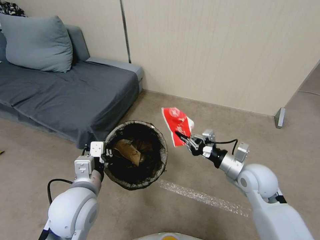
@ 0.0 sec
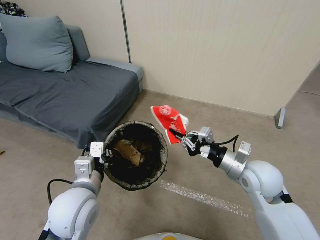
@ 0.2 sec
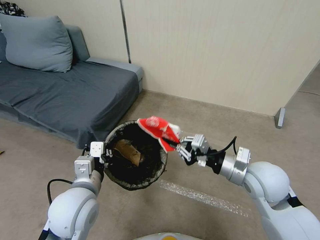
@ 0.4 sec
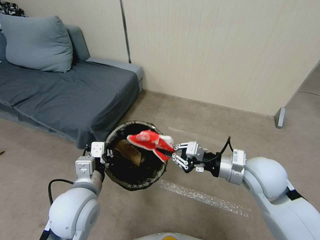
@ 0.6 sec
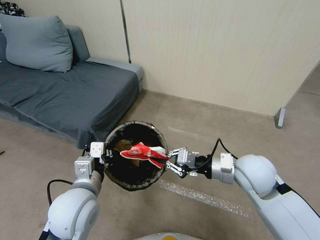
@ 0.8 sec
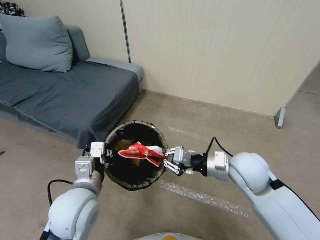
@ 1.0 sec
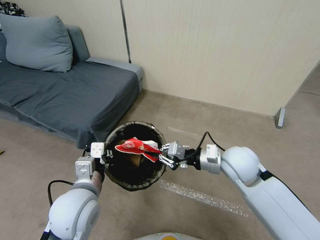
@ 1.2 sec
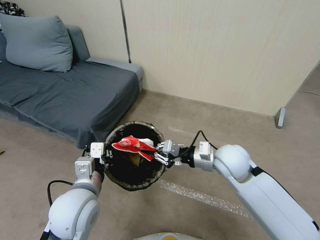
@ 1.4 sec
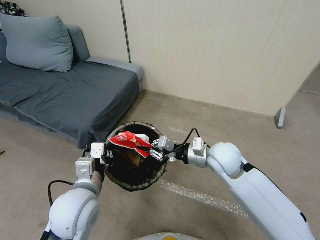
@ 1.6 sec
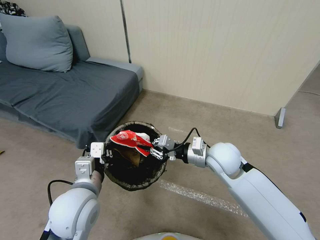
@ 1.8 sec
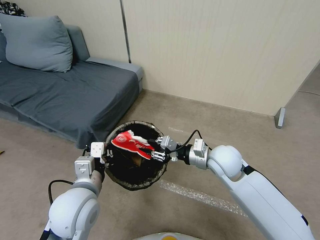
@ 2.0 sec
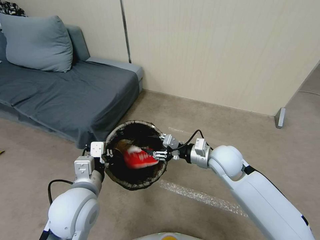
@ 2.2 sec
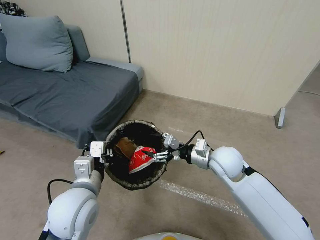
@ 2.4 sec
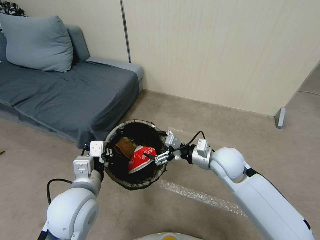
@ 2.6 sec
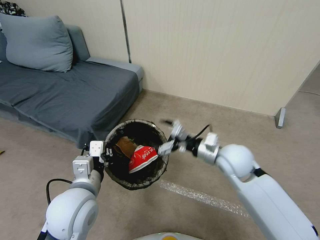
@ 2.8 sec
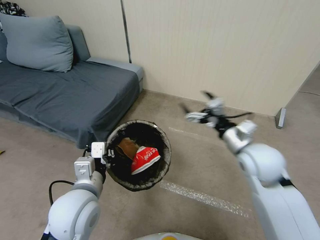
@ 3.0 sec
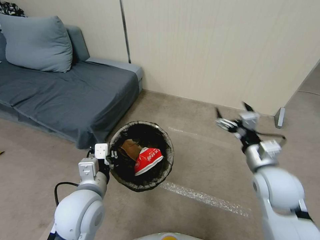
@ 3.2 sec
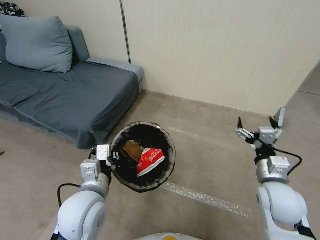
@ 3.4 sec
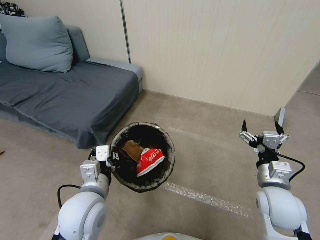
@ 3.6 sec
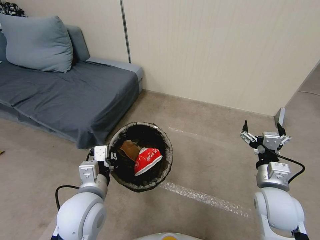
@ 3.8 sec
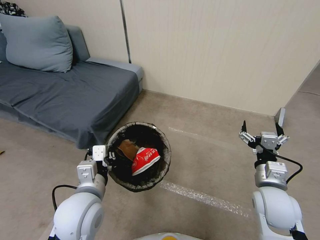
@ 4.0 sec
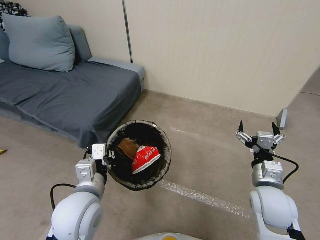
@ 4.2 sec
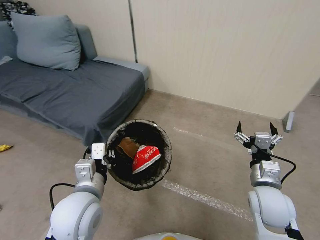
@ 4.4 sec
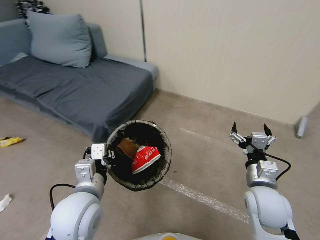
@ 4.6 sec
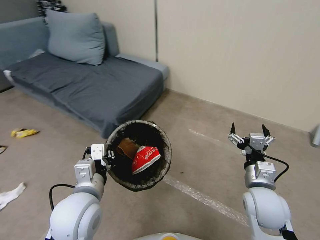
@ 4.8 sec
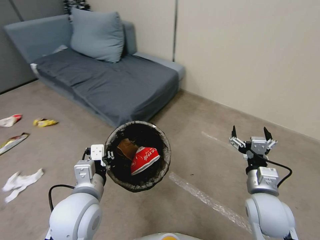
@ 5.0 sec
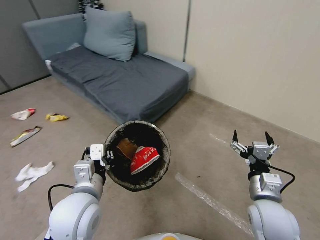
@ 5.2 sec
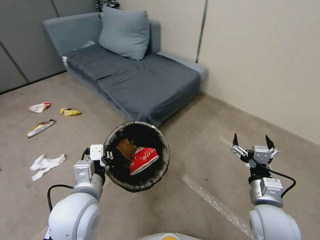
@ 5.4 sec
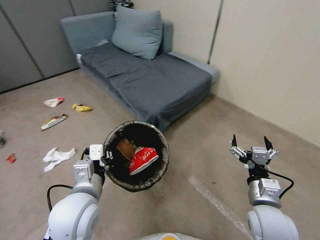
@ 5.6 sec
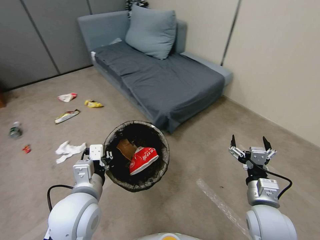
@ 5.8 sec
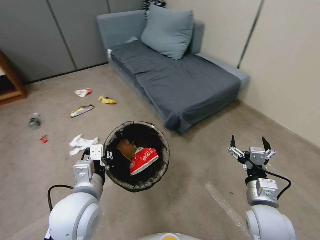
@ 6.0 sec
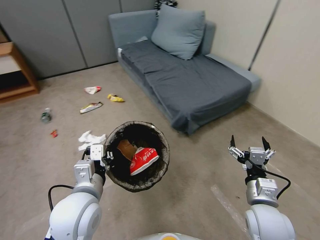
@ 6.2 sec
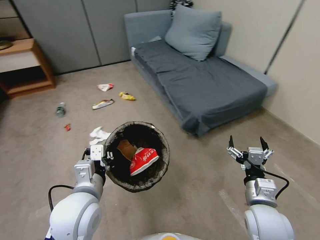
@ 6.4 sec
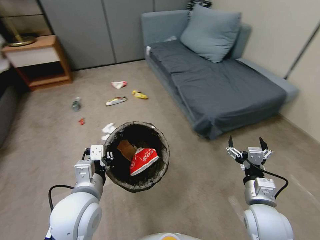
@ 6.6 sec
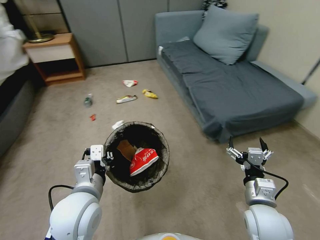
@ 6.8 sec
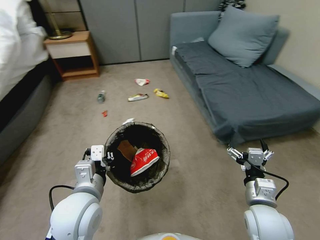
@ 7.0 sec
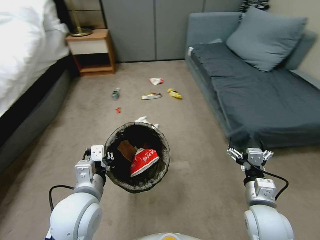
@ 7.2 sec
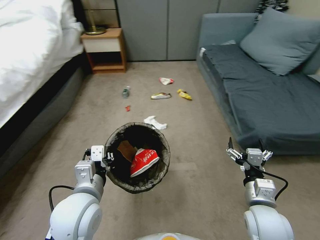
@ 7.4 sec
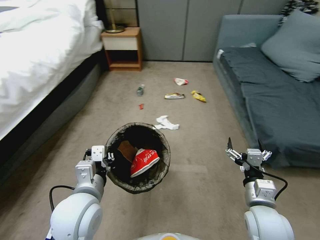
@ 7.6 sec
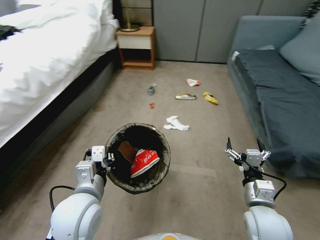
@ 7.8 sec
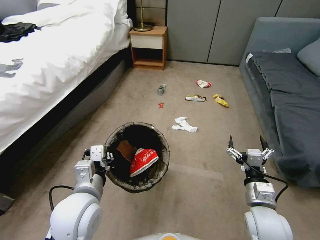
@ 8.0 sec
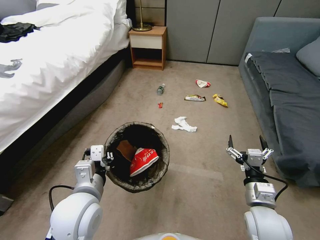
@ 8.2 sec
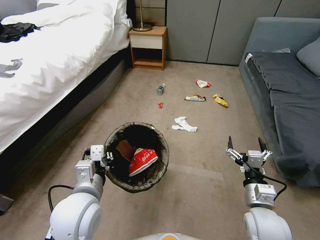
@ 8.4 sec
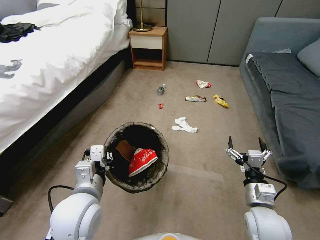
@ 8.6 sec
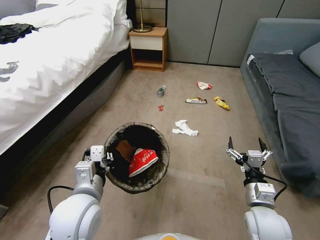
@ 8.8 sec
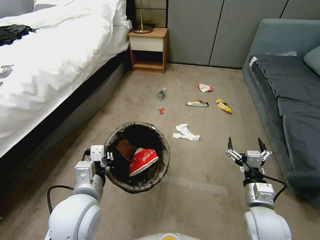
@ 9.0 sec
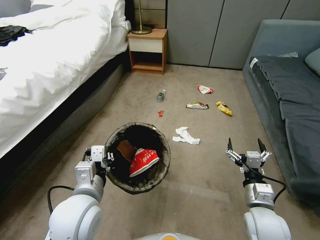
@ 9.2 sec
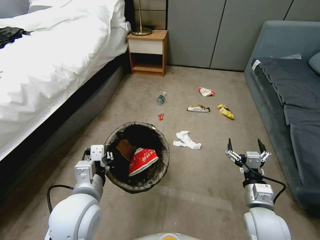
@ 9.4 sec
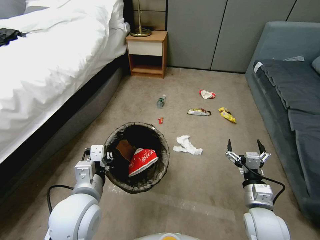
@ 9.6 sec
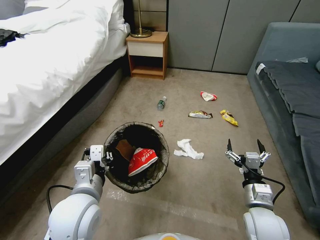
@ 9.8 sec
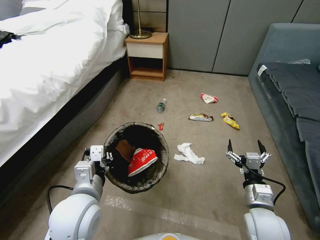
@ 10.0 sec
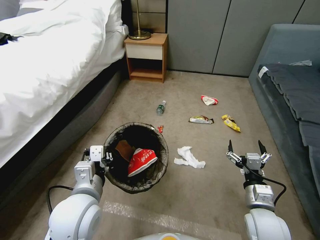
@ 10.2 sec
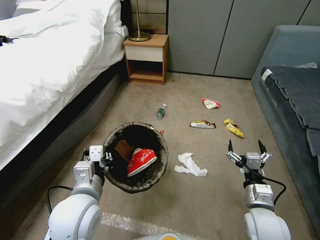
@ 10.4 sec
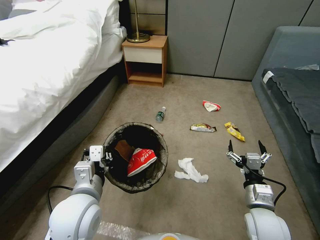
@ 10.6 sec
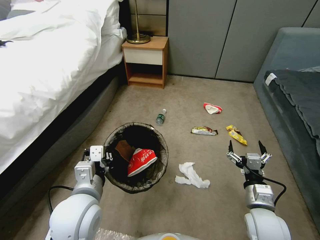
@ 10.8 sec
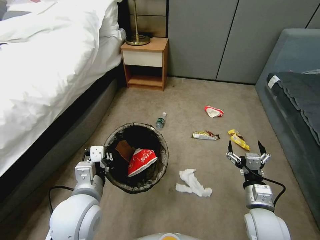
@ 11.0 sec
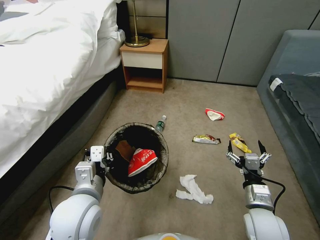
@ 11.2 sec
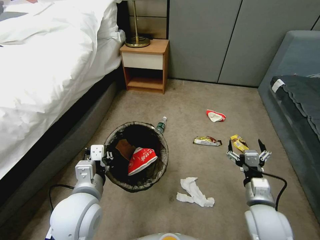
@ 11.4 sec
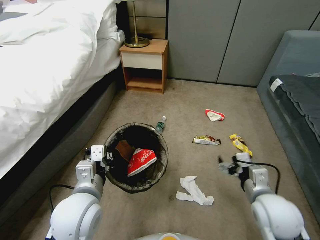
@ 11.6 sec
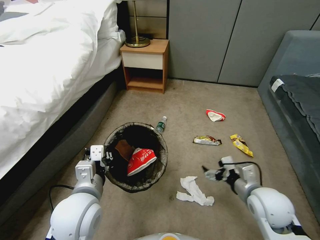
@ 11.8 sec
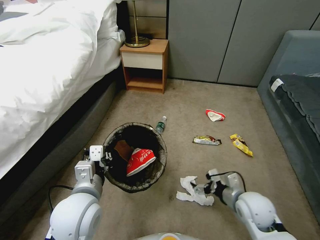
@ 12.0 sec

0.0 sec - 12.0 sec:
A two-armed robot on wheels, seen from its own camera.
Task of the whole recording: Pick up the trash bin, then pick up the garbage from the floor and place it into the trash bin.
0.0 sec - 1.6 sec: The right gripper travels to the left by approximately 10 cm.
1.6 sec - 3.0 sec: The right gripper is displaced to the right by about 5 cm, and opens.
3.0 sec - 4.4 sec: The right gripper goes about 10 cm downward and backward.
10.4 sec - 12.0 sec: The right gripper moves roughly 5 cm upward and comes back.

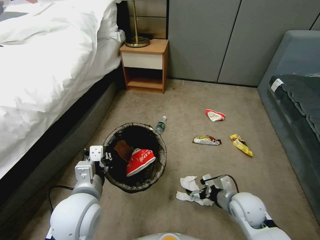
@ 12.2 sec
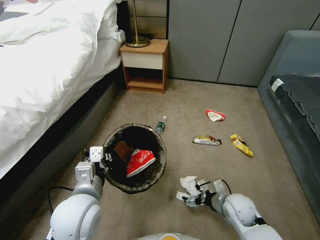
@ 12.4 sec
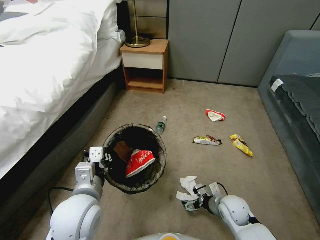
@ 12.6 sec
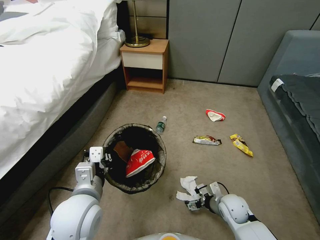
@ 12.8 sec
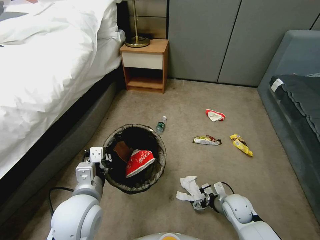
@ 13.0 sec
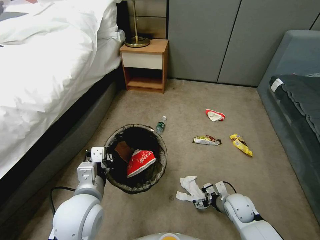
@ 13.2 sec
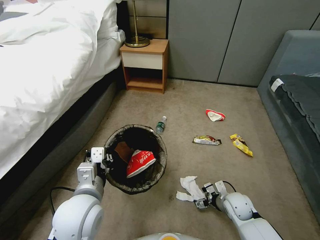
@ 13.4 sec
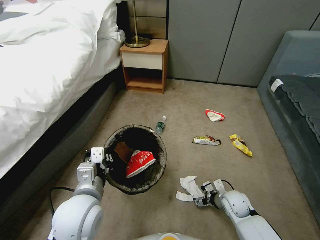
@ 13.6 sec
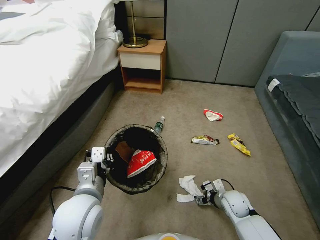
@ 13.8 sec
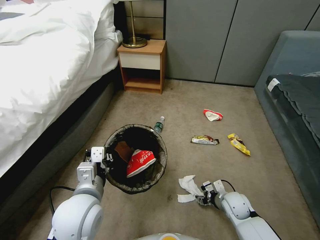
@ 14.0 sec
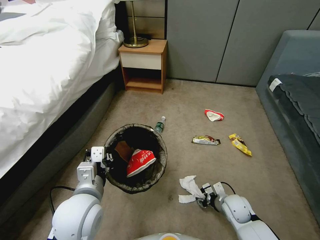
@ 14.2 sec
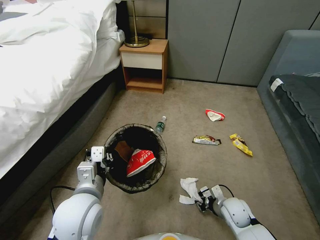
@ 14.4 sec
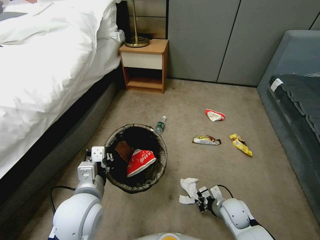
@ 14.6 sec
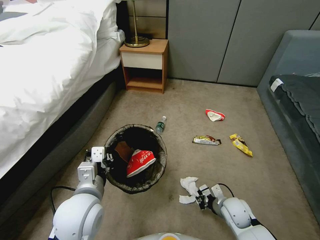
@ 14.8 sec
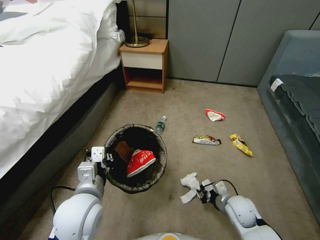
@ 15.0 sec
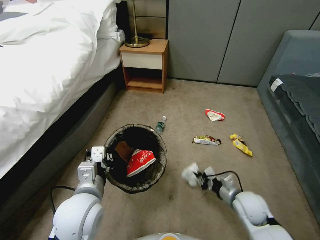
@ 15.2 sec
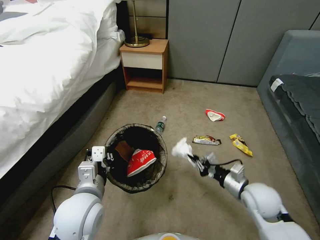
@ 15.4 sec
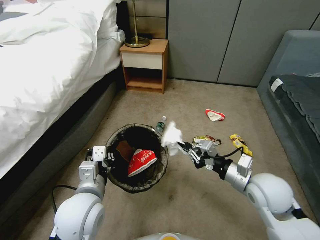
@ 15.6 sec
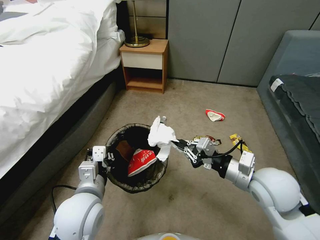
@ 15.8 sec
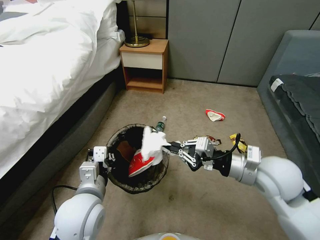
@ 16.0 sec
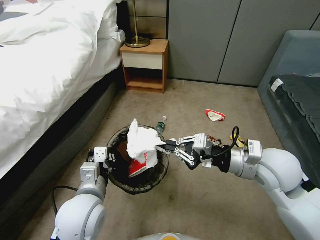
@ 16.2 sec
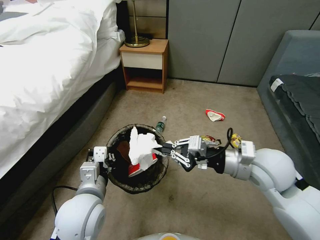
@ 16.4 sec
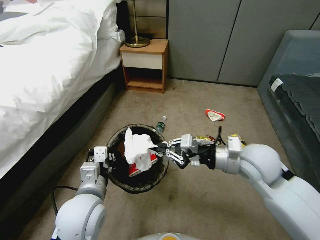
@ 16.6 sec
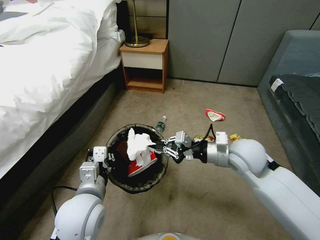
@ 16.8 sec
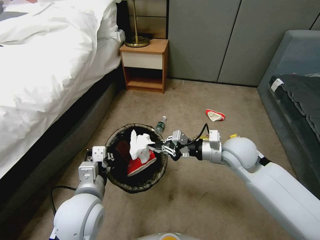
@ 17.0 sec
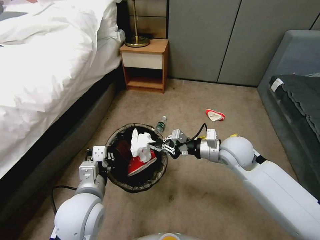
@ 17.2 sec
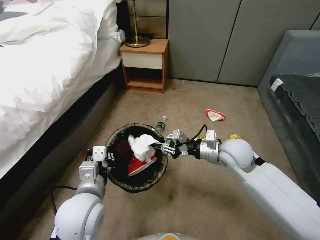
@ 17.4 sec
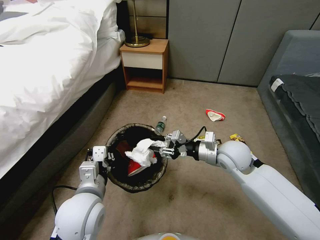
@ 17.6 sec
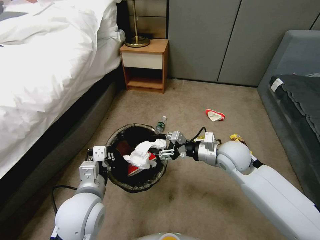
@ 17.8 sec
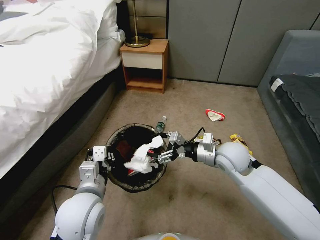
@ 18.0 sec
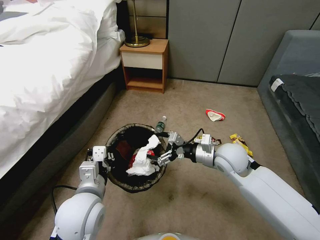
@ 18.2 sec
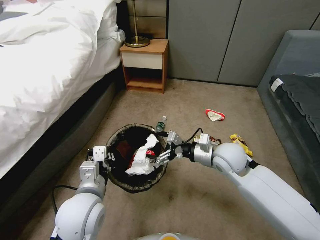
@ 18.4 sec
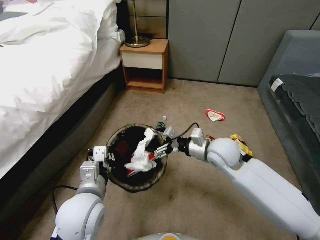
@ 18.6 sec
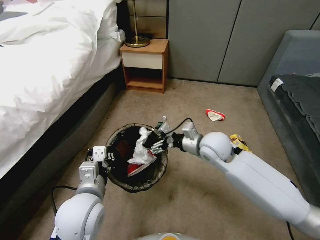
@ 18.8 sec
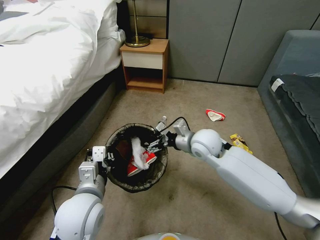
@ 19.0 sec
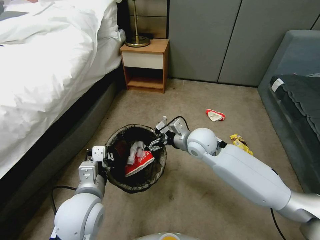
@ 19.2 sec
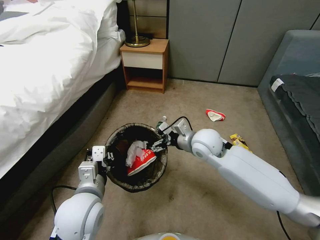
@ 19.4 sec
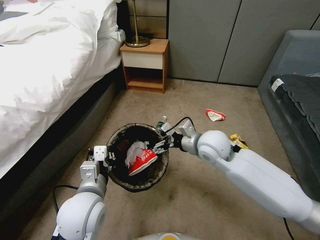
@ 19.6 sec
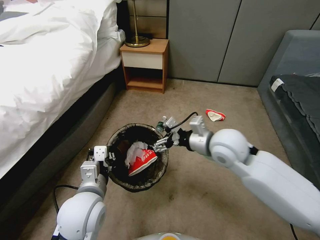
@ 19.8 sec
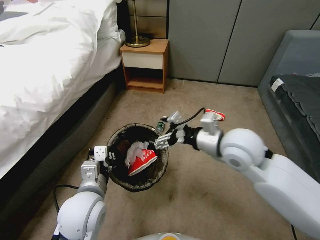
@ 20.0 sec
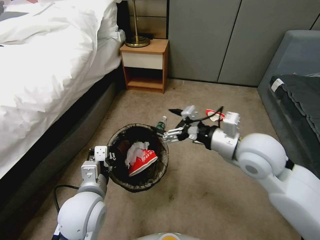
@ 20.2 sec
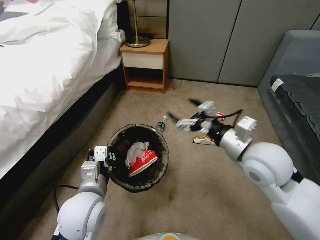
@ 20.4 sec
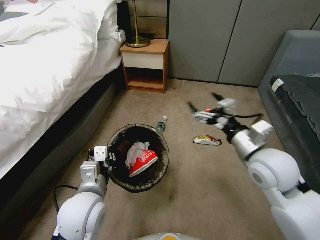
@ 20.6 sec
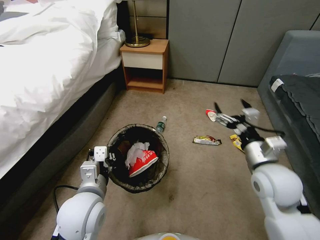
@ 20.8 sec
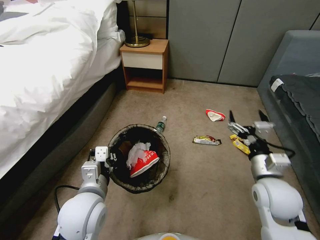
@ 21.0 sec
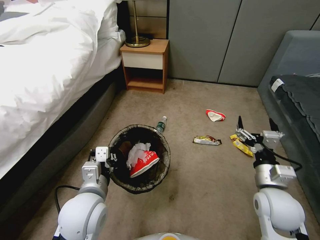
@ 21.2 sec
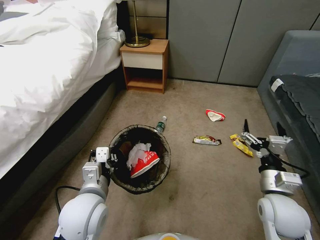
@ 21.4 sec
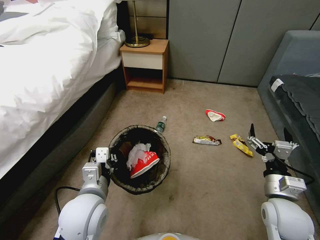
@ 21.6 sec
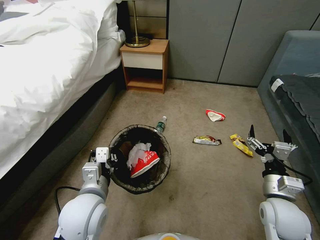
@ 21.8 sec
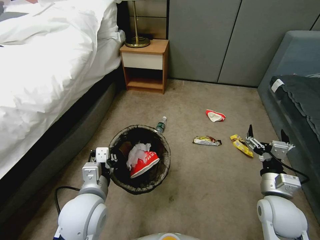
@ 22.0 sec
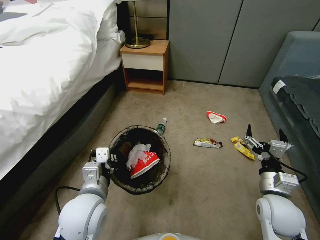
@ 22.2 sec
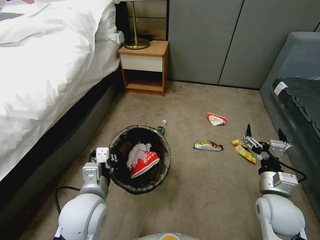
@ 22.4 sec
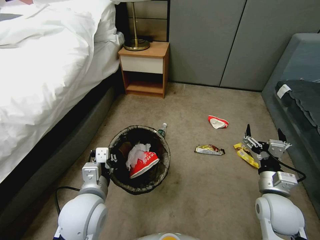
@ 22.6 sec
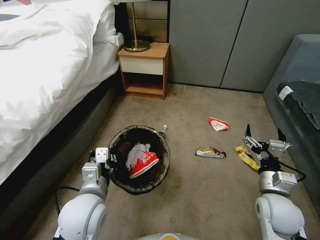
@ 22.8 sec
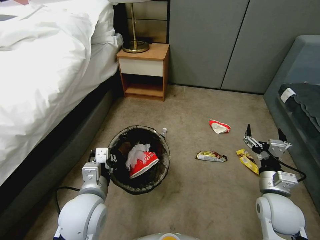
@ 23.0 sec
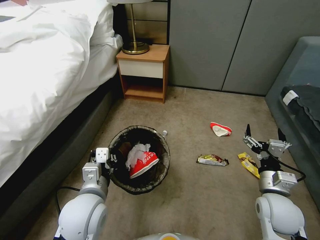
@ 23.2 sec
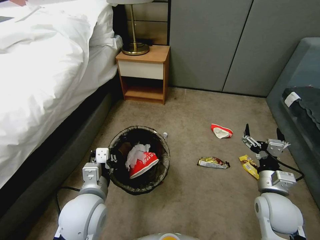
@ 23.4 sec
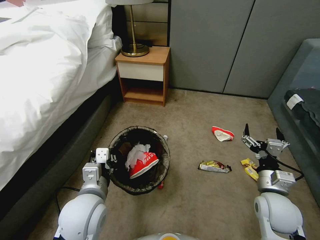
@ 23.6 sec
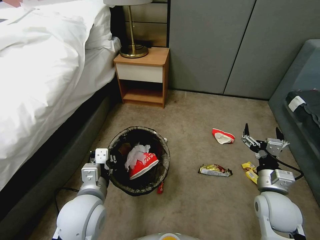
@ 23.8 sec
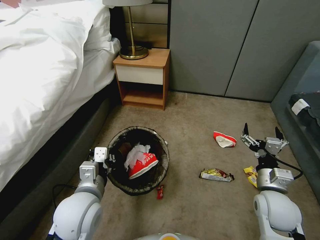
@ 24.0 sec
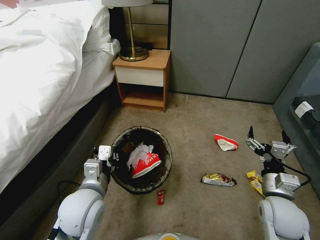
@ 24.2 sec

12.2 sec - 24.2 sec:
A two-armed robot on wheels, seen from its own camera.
Task of the whole recording: Pick up the trash bin, then pick up the garbage from the floor and place it into the trash bin.
12.2 sec - 13.8 sec: The right gripper shifts about 10 cm downward.
13.8 sec - 15.2 sec: The right gripper heads upward, covering approximately 10 cm, and closes.
15.2 sec - 16.6 sec: The right gripper moves upward, approximately 20 cm.
16.6 sec - 18.2 sec: The right gripper is displaced downward and forward by some 10 cm, and opens its fingers.
18.2 sec - 19.8 sec: The right gripper goes about 10 cm upward.
19.8 sec - 21.2 sec: The right gripper heads to the right, backward and downward, covering approximately 20 cm.
21.2 sec - 22.6 sec: The grippers stay close to where they were, moving slightly.
